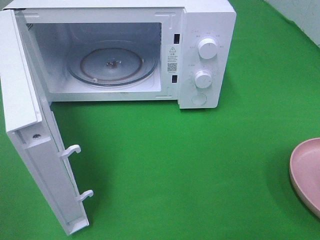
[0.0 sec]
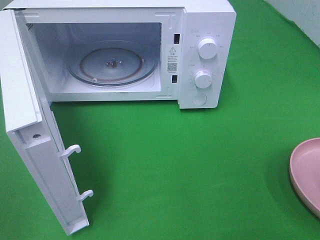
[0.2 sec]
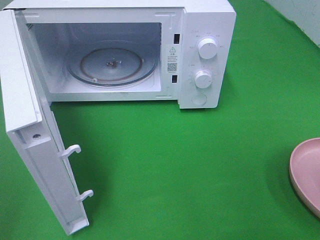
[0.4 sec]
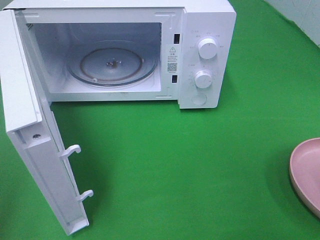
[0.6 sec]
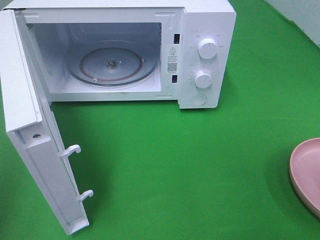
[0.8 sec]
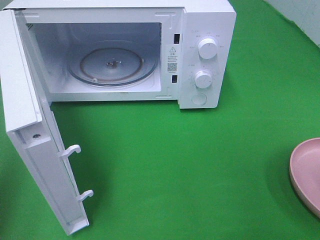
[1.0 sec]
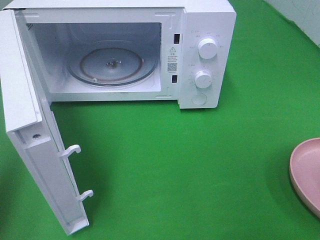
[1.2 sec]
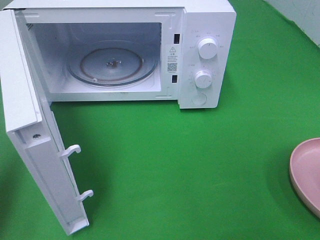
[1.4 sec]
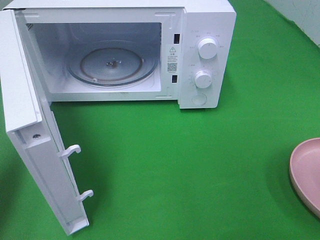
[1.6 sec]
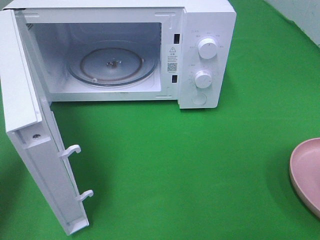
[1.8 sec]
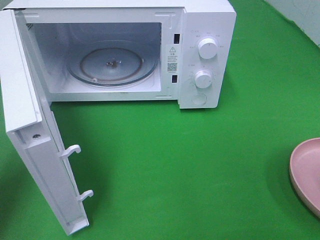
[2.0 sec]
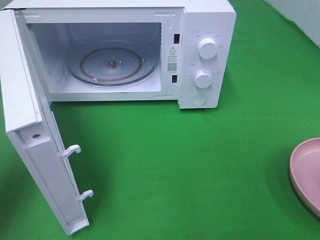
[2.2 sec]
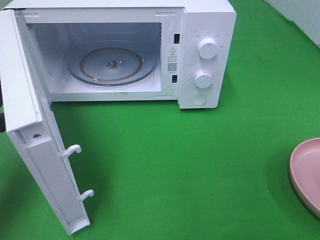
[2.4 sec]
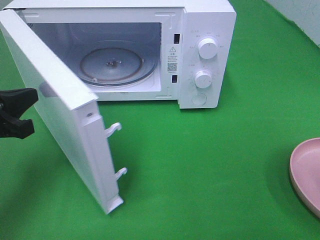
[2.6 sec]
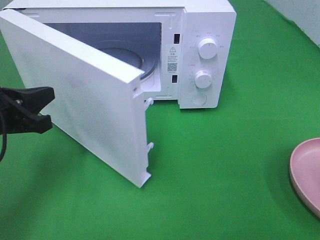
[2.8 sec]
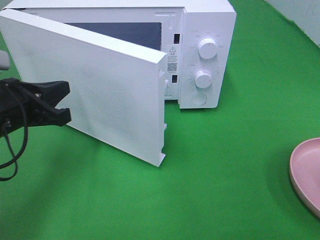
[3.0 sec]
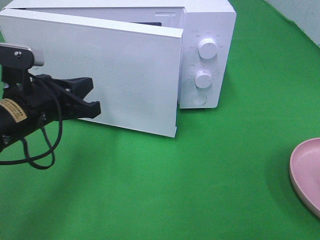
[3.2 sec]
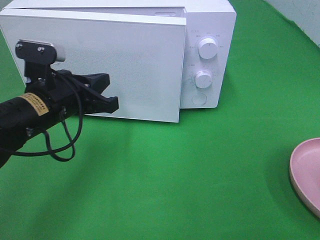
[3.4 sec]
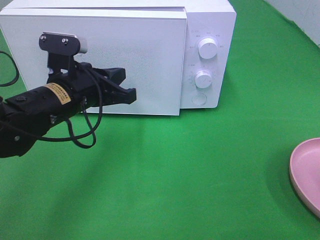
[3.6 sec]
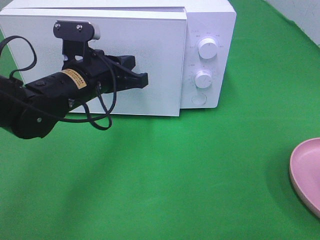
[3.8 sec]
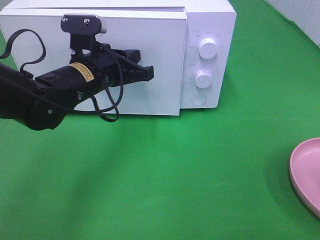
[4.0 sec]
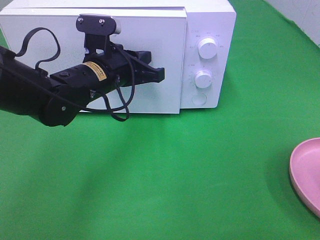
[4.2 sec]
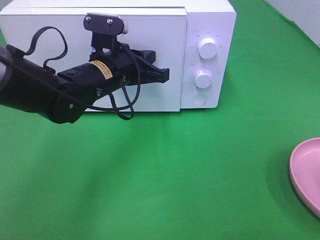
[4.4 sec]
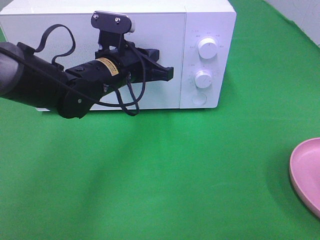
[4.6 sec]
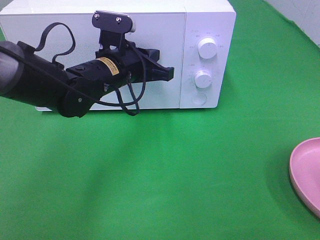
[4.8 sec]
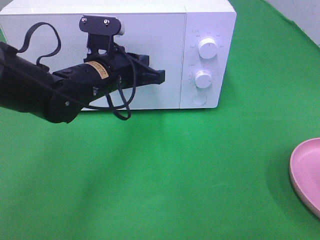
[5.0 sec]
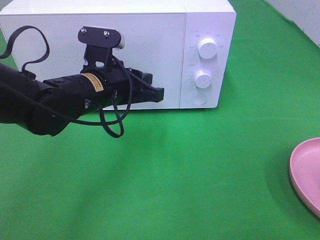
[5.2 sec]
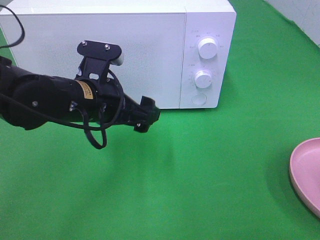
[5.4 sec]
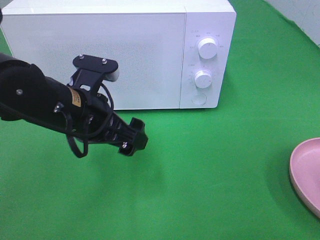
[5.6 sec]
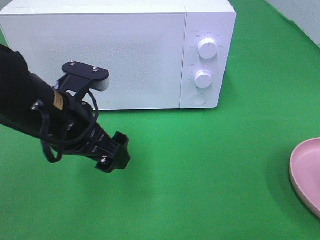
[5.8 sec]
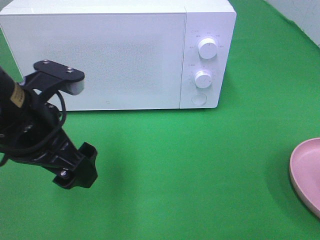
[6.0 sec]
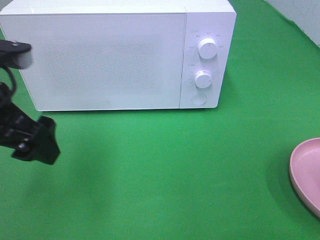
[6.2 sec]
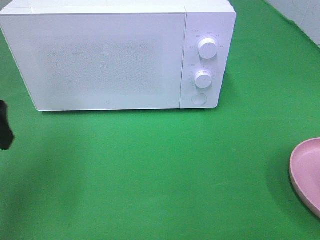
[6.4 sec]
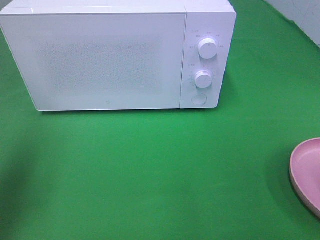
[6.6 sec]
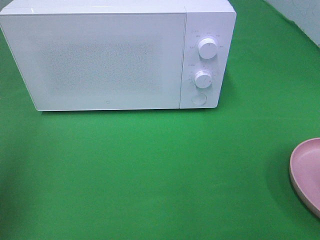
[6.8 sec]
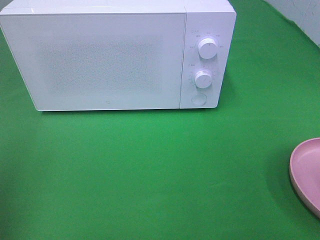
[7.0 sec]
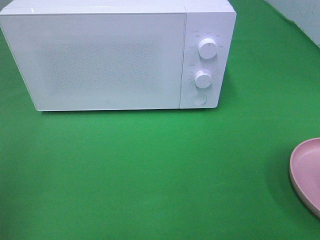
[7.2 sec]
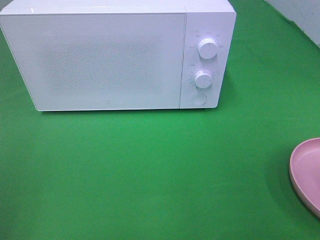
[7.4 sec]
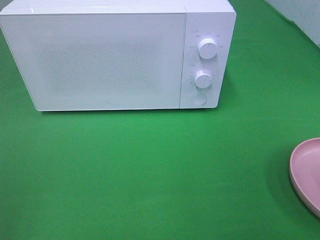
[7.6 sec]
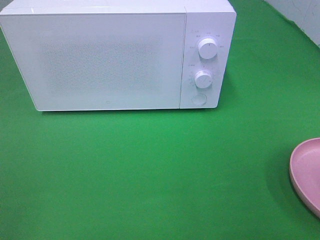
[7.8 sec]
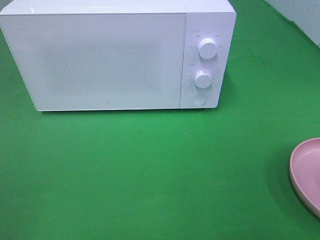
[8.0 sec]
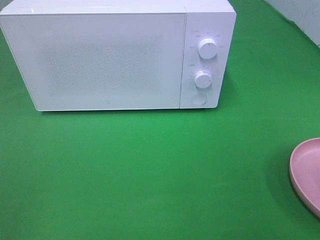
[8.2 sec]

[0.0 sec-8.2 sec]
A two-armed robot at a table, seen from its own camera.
Task of the whole recording: Heat the burger.
Step, 0.0 sec to 5.2 sec: Left hand: close the microwave door.
0.0 sec to 1.6 sec: The left gripper heads forward, covering some 15 cm, and closes its fingers.
1.6 sec to 3.2 sec: The left gripper travels to the right, forward and downward by approximately 20 cm.
3.2 sec to 5.0 sec: The left gripper moves to the right and forward, about 10 cm.
5.0 sec to 6.6 sec: The left gripper moves to the left, backward and upward, some 30 cm, and opens its fingers.
6.6 sec to 8.2 sec: The left gripper travels backward by some 20 cm.
